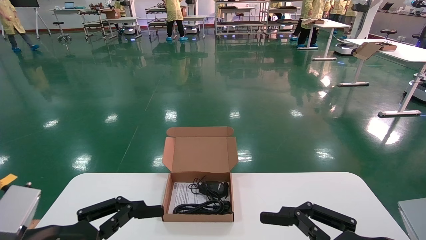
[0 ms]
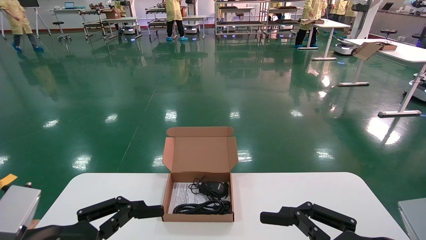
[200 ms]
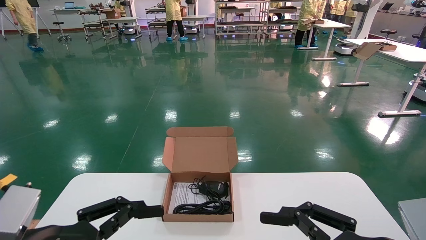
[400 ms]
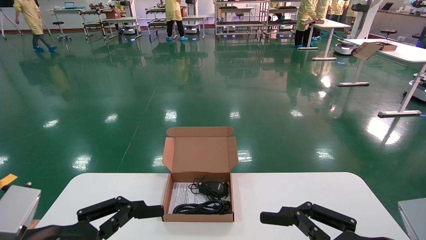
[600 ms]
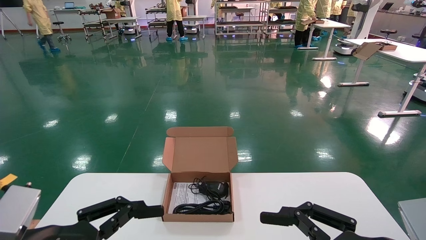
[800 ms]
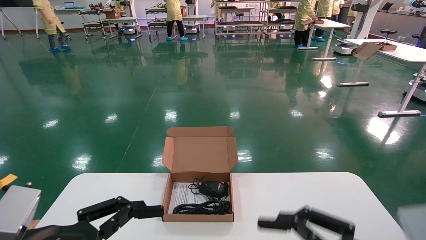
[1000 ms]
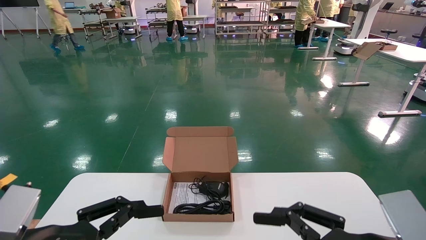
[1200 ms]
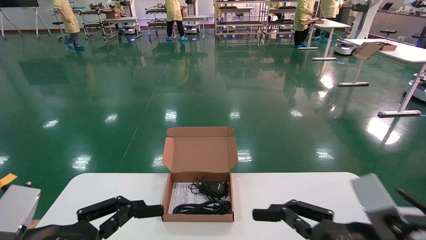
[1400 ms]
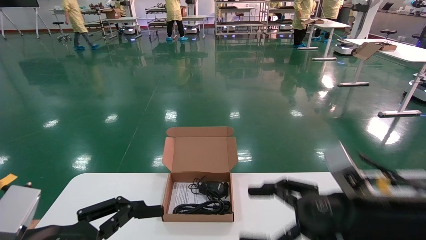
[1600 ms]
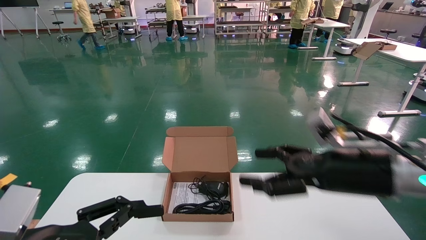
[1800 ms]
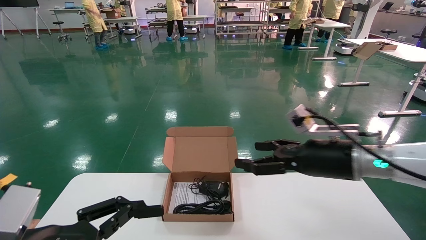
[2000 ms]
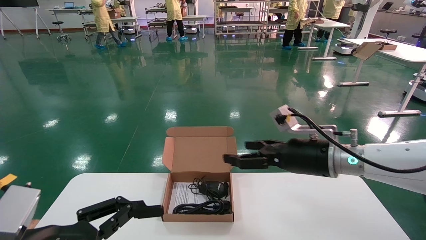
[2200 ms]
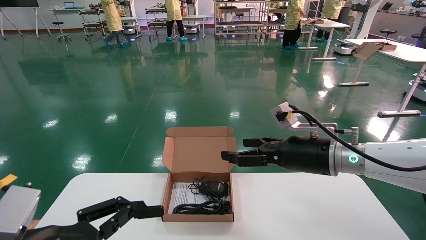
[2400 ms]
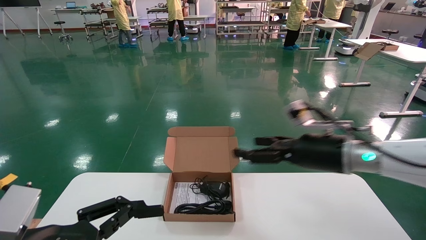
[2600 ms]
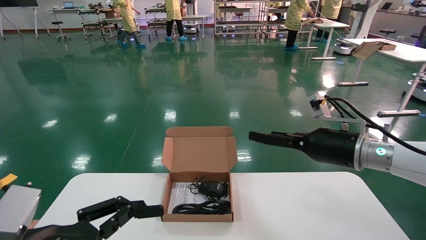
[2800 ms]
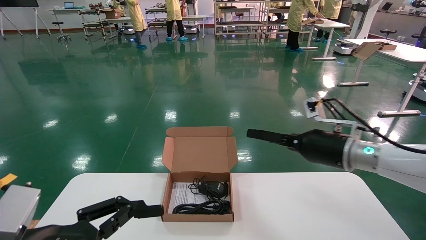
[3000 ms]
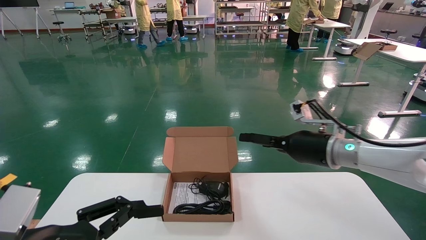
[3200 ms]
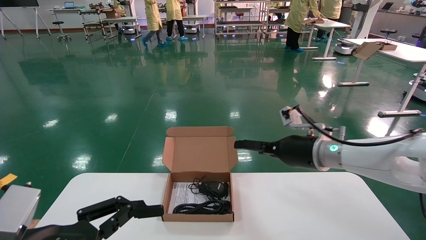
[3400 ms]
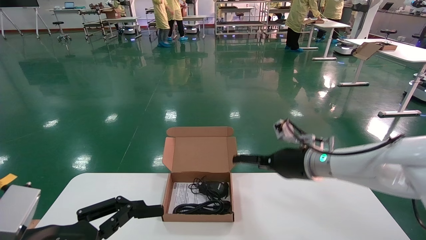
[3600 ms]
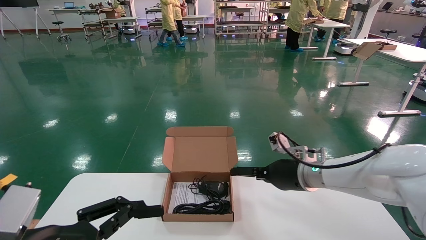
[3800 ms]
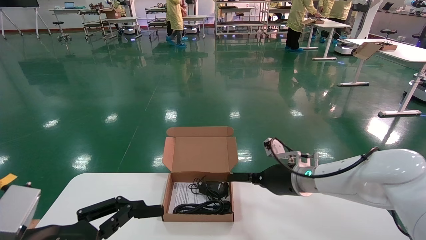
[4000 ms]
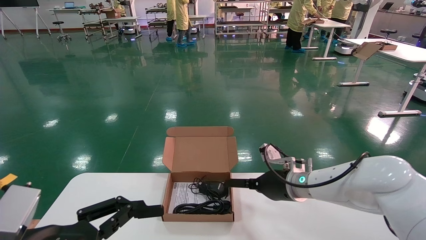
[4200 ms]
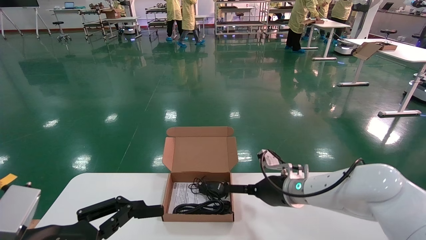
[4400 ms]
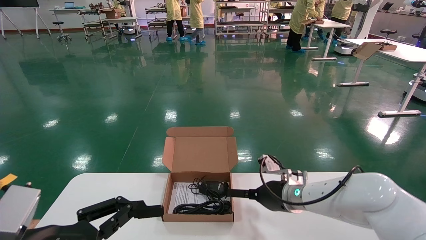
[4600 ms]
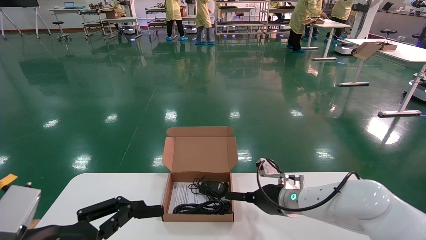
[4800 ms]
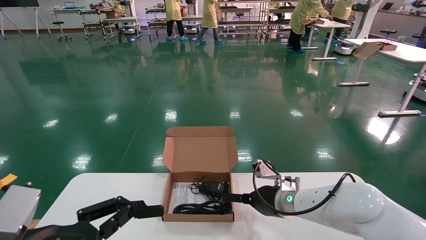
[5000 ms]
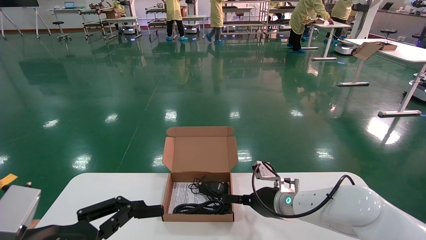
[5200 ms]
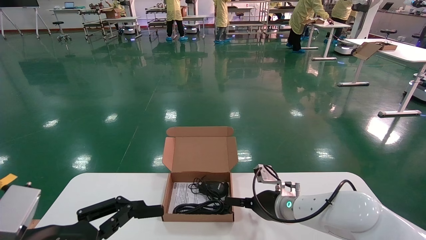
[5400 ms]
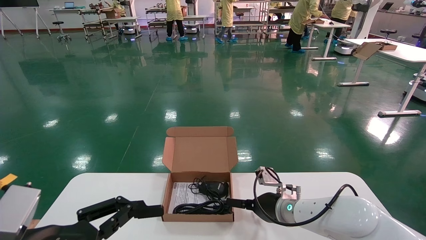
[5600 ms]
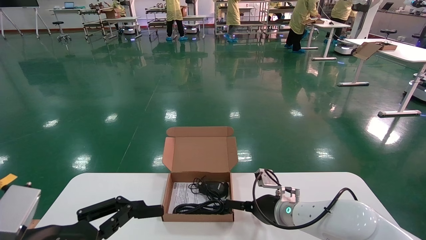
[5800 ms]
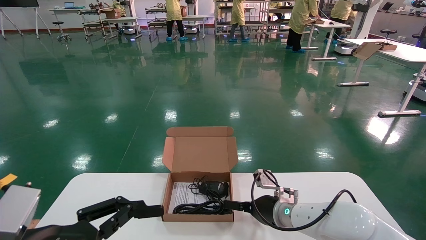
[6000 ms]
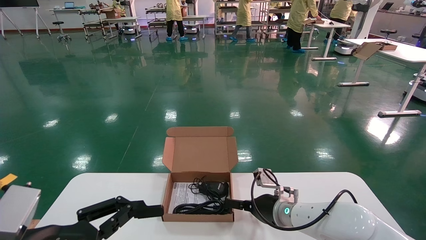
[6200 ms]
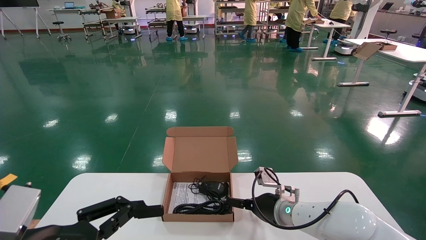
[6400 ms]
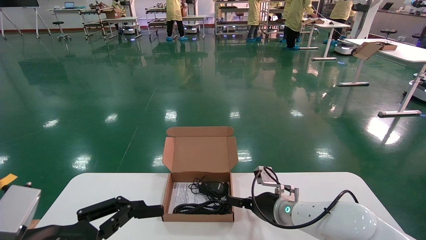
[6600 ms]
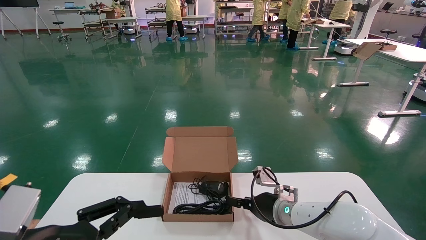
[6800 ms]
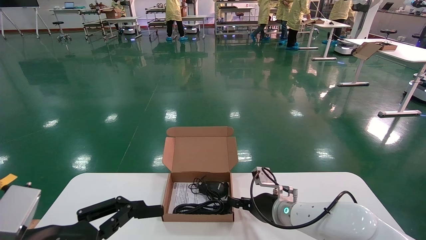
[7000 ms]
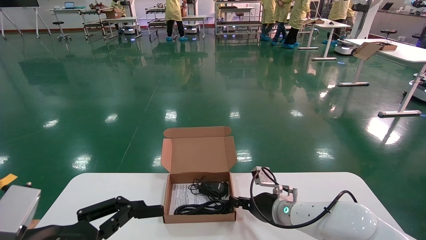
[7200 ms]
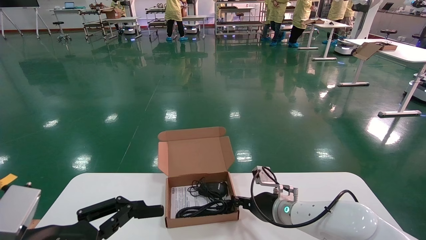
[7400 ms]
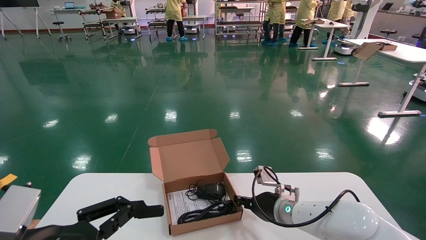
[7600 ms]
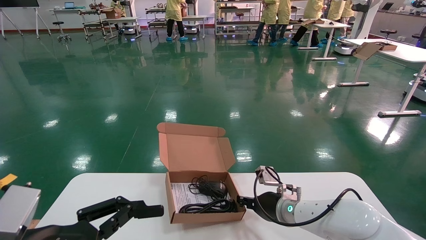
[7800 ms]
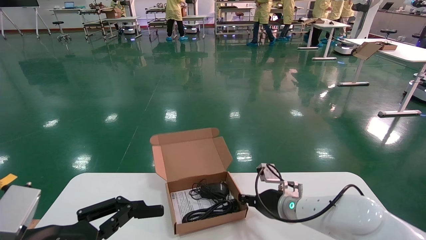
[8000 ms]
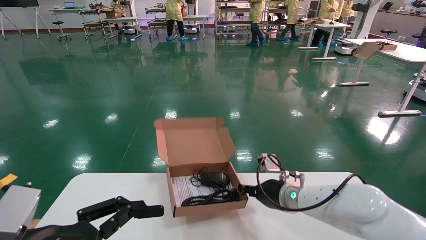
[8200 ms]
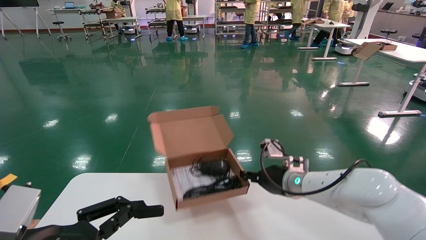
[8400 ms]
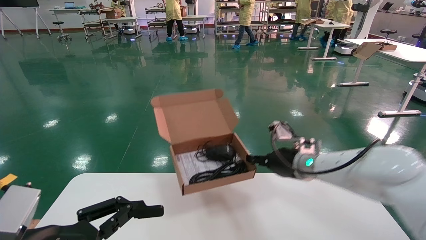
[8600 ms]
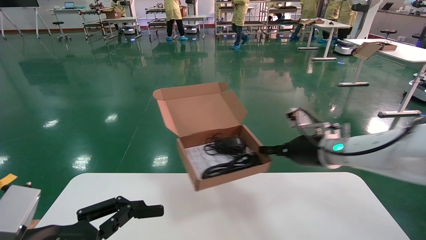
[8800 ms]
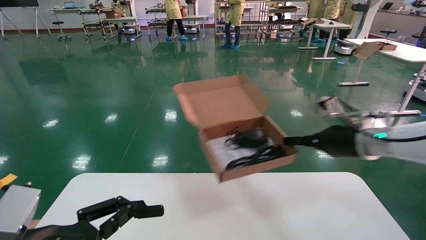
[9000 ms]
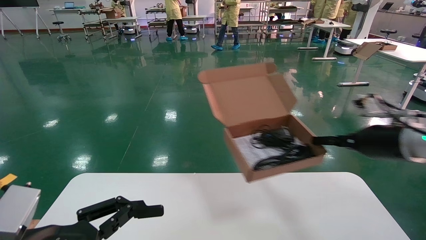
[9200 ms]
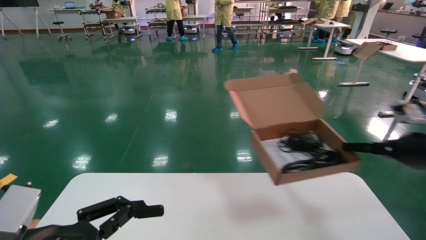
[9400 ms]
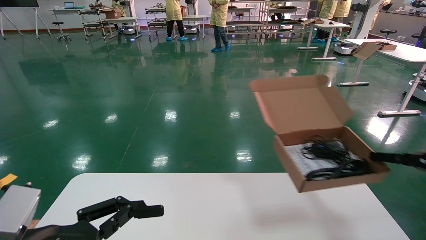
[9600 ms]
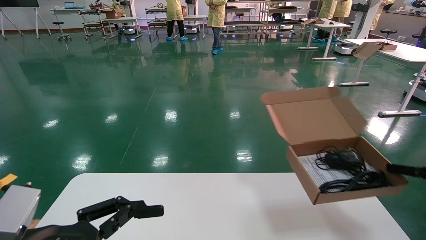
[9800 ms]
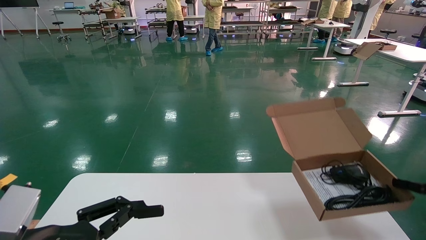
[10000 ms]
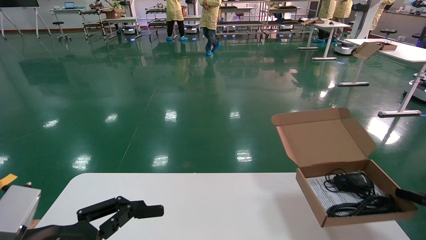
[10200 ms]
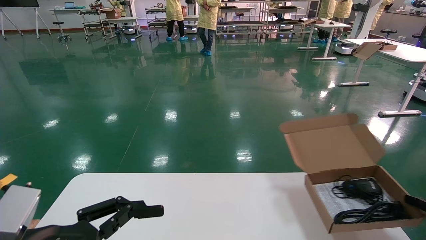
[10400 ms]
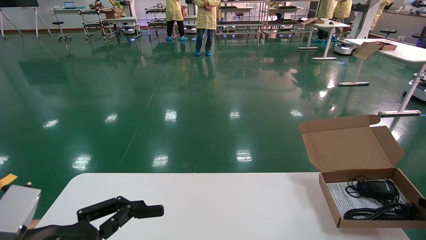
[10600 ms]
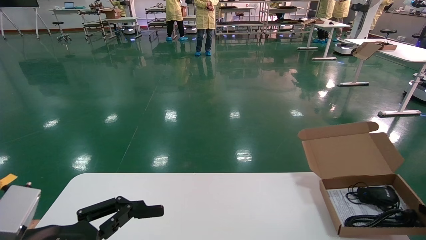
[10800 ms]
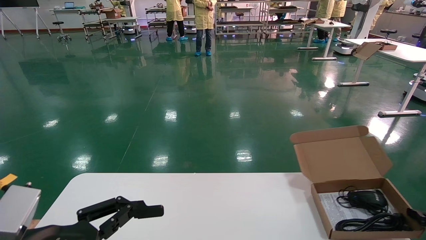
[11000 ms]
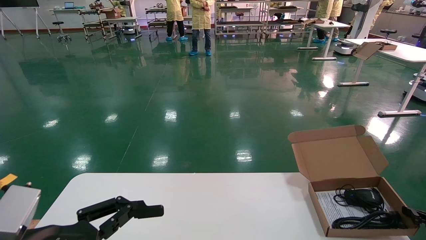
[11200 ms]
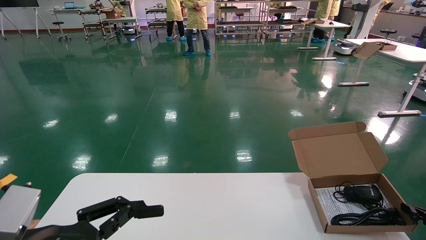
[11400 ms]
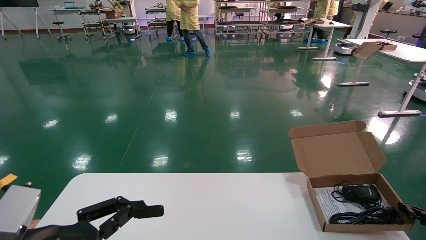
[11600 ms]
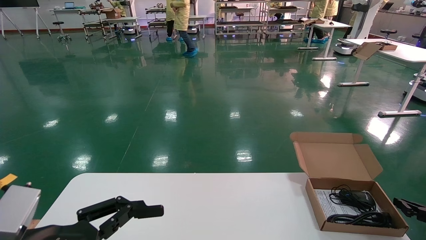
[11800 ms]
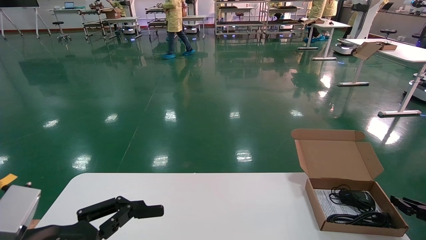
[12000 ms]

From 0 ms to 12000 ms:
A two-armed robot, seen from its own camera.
Task of the whole recording: move the position of the storage box with accessories on the table.
Step, from 1400 ms to 7600 ms: Grab and pick up the open mouse box from the accessory packaging area.
From 0 ms to 1600 ms: The right gripper heads forward, covering roughly 10 cm.
From 1600 ms to 3000 ms: The right gripper moves forward, approximately 15 cm.
From 3000 ms to 4400 ms: The right gripper travels downward and to the left by some 15 cm.
From 4400 ms to 6000 ms: The right gripper goes approximately 5 cm downward.
From 6000 ms to 7600 ms: The right gripper closes its fingers.
From 7600 ms to 9000 ms: The right gripper travels upward and to the right by some 25 cm.
From 9000 ms to 10400 ms: The right gripper moves to the right and downward, roughly 25 cm.
From 10400 ms to 12000 ms: The right gripper changes place by some 5 cm.

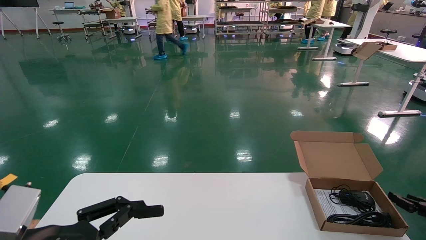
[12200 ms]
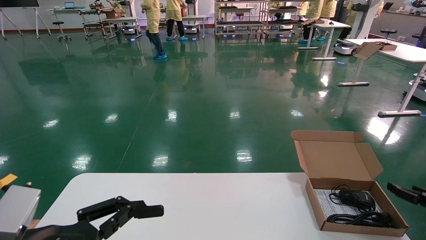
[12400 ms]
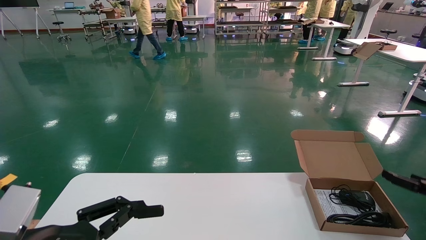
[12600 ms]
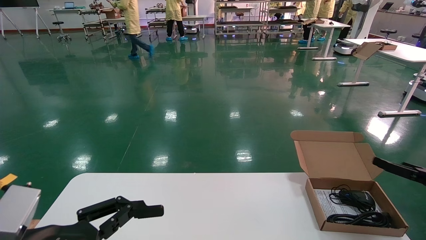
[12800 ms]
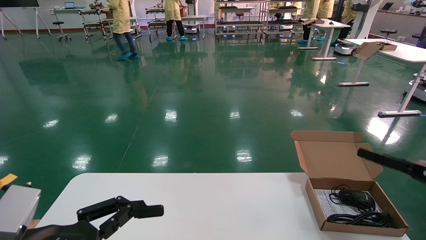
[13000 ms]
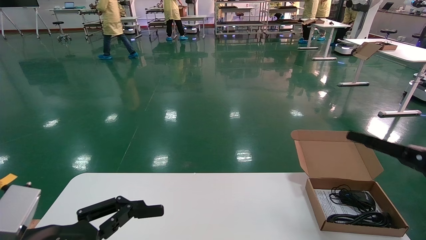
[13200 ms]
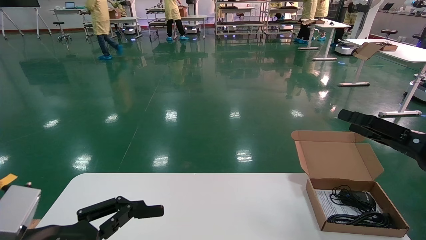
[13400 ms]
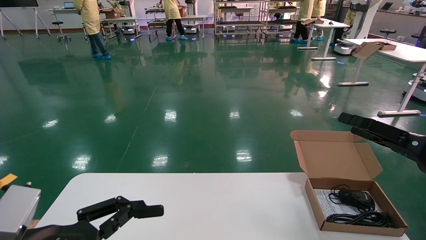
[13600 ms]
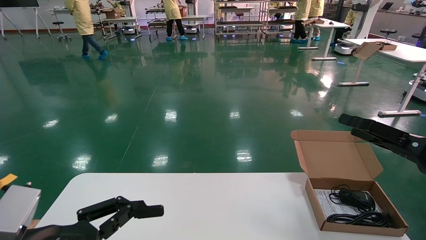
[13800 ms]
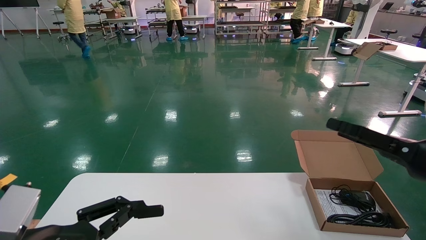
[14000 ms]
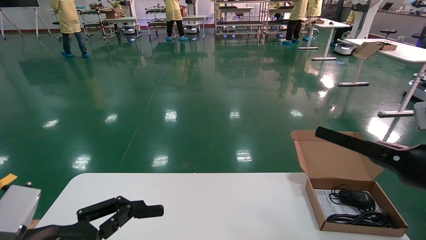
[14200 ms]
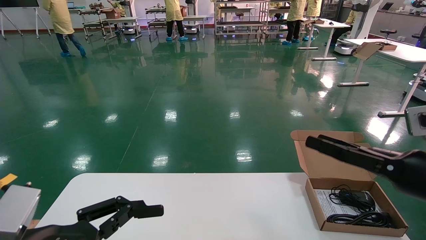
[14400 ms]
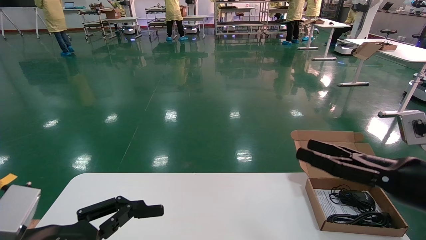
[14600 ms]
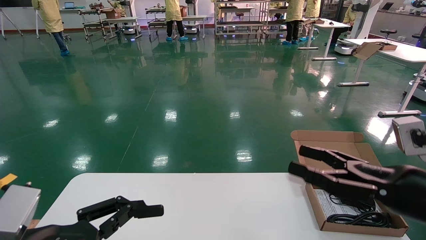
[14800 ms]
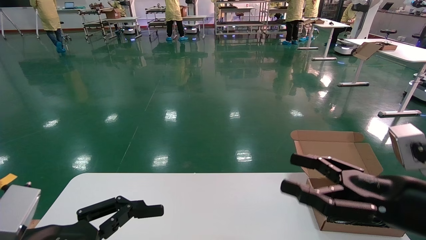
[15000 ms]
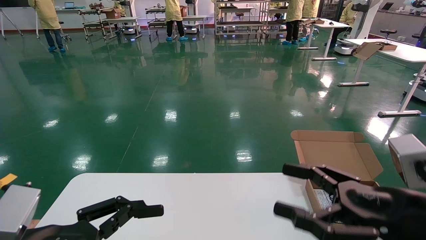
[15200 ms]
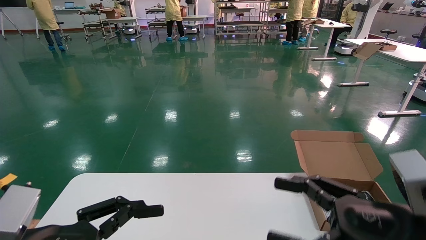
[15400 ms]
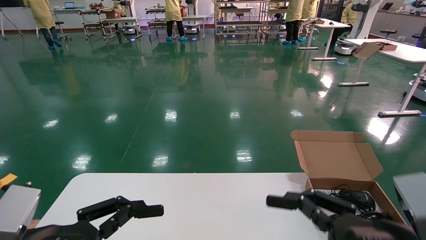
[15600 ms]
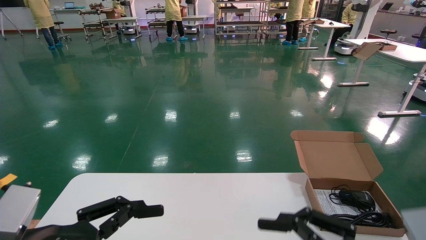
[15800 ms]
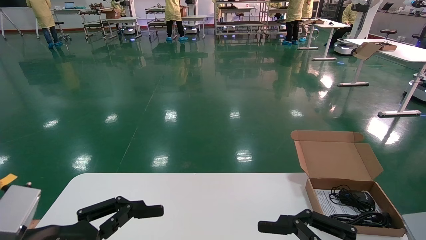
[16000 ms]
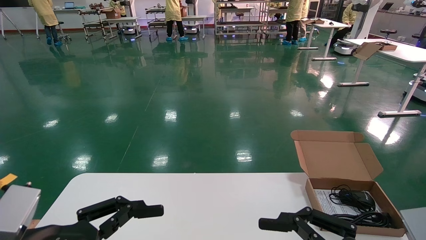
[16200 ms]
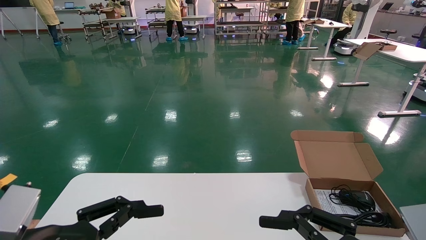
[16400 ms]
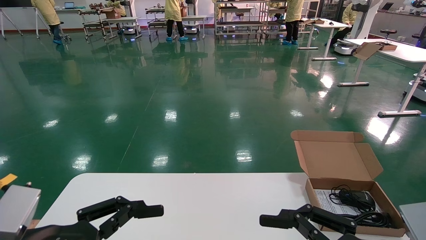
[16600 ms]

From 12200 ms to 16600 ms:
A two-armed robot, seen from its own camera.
Task of the whole recording: move the position of the storage box with accessories on the table.
From 12200 ms to 13600 ms: The right gripper moves upward, to the left and backward, some 20 cm, and opens.
From 13600 ms to 15200 ms: The right gripper moves to the left and backward, some 15 cm.
From 15200 ms to 16600 ms: The right gripper goes roughly 5 cm backward.
